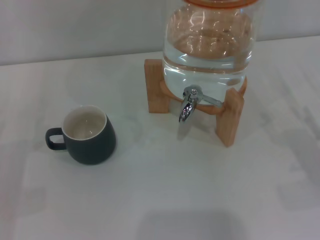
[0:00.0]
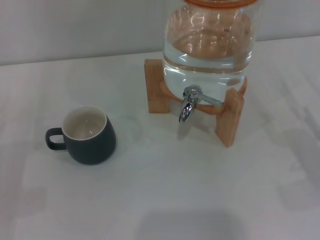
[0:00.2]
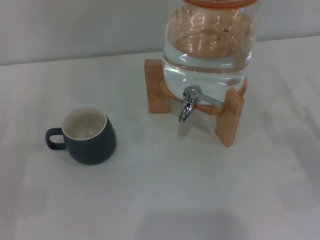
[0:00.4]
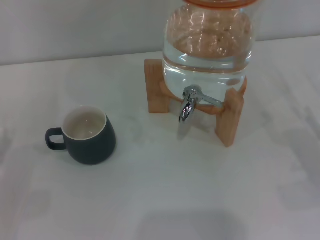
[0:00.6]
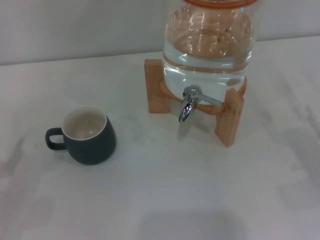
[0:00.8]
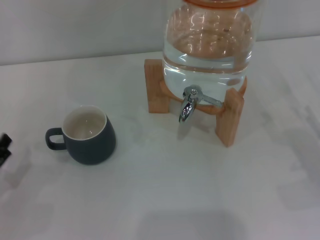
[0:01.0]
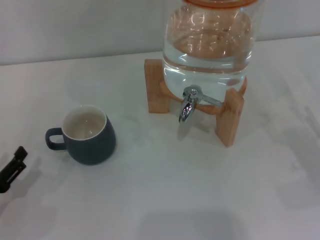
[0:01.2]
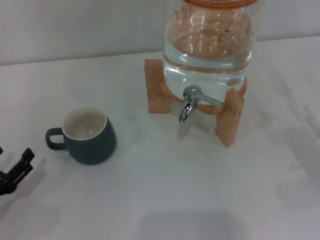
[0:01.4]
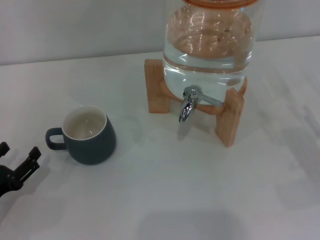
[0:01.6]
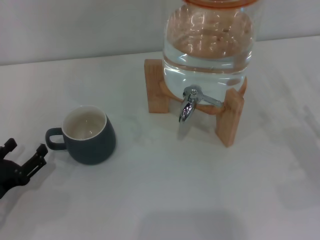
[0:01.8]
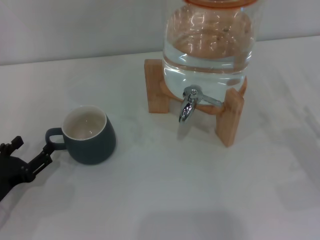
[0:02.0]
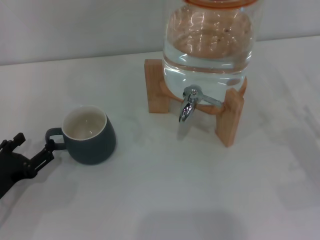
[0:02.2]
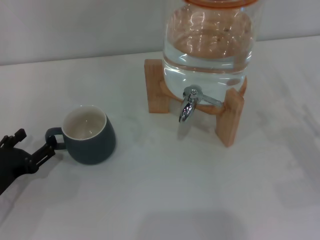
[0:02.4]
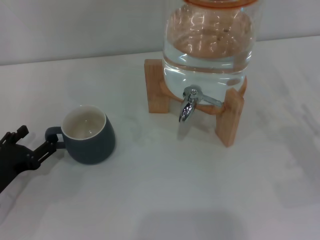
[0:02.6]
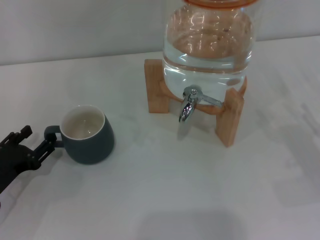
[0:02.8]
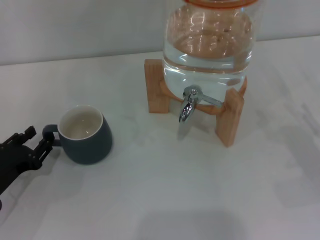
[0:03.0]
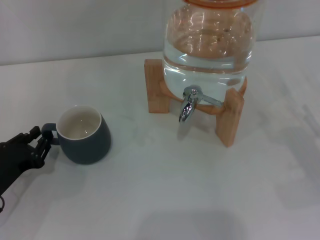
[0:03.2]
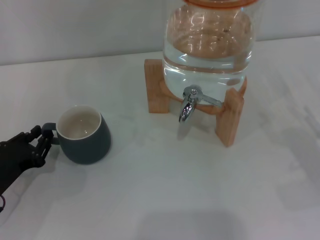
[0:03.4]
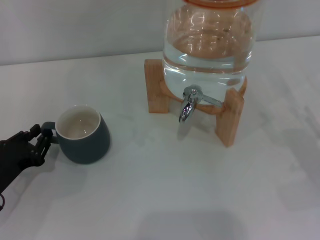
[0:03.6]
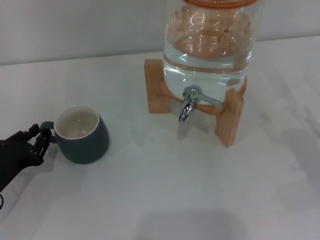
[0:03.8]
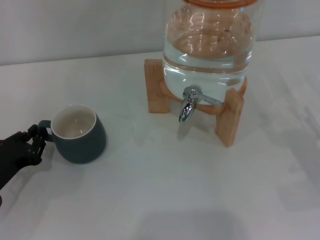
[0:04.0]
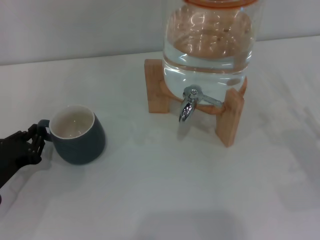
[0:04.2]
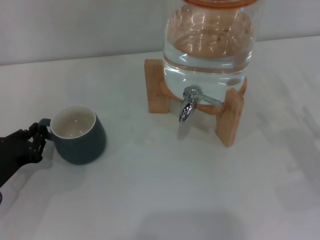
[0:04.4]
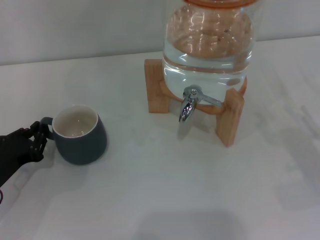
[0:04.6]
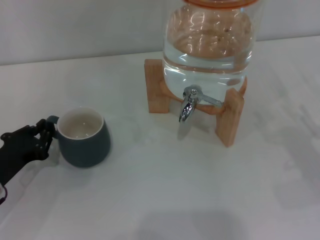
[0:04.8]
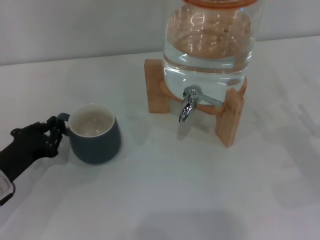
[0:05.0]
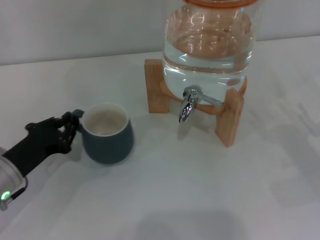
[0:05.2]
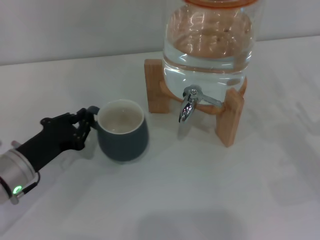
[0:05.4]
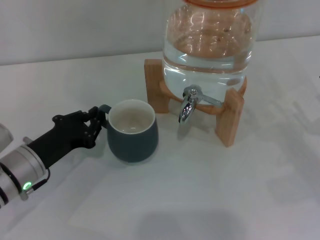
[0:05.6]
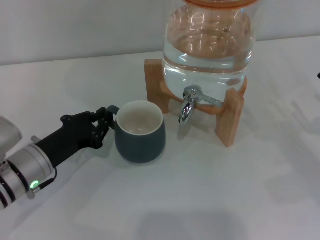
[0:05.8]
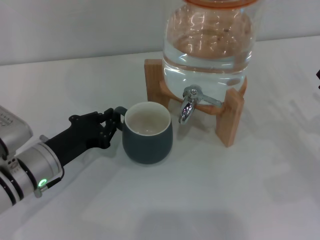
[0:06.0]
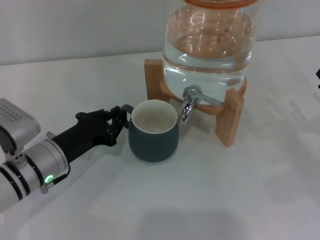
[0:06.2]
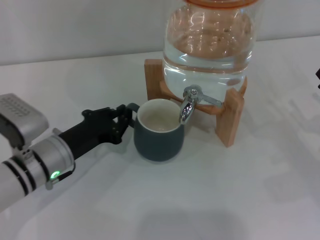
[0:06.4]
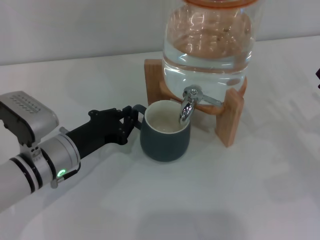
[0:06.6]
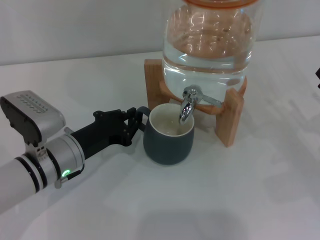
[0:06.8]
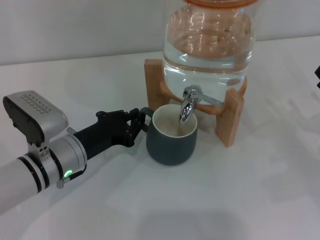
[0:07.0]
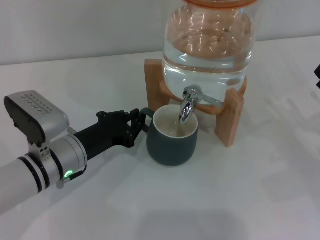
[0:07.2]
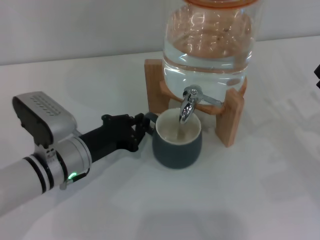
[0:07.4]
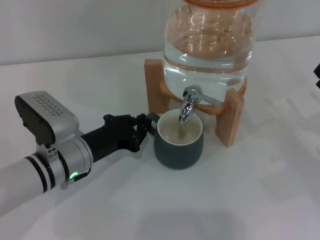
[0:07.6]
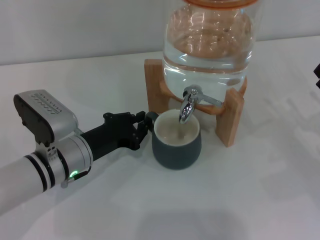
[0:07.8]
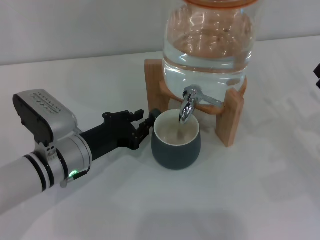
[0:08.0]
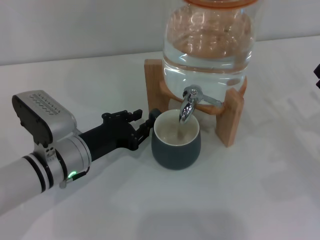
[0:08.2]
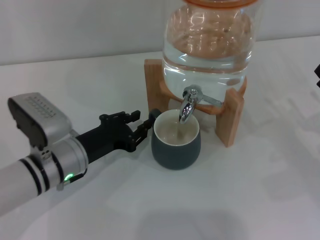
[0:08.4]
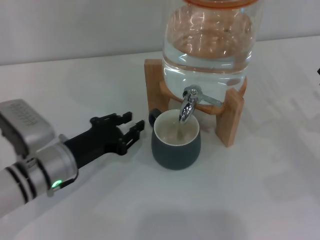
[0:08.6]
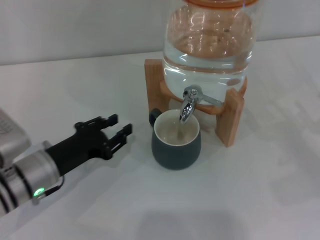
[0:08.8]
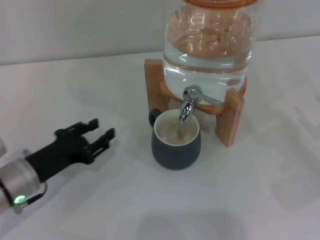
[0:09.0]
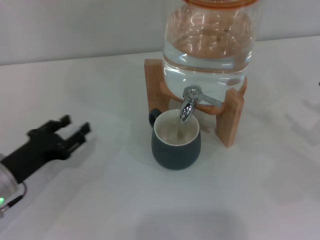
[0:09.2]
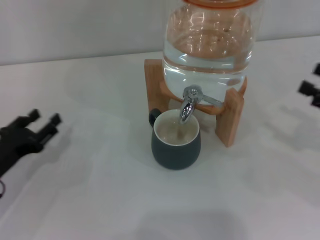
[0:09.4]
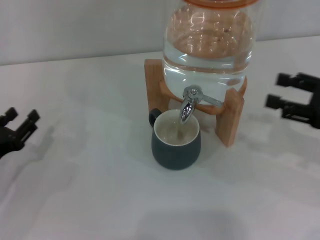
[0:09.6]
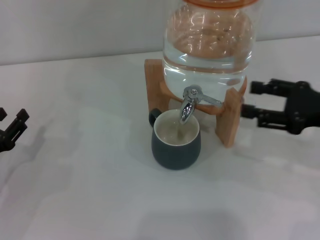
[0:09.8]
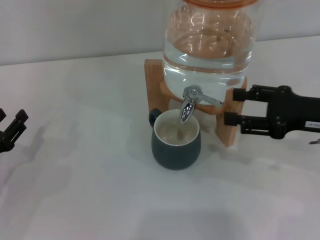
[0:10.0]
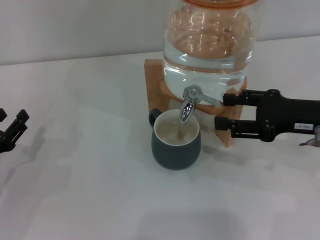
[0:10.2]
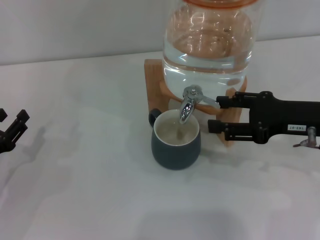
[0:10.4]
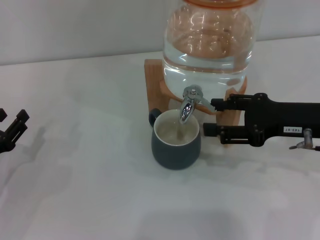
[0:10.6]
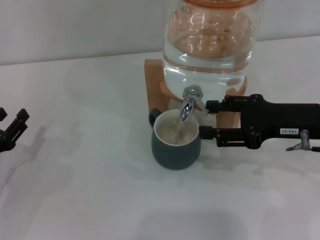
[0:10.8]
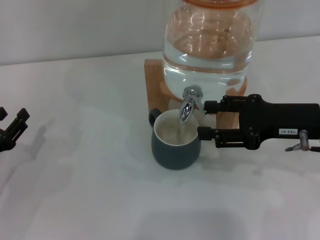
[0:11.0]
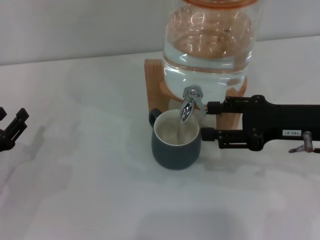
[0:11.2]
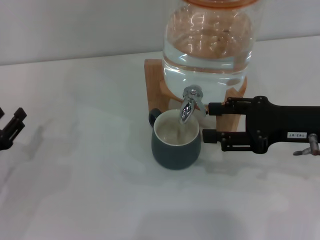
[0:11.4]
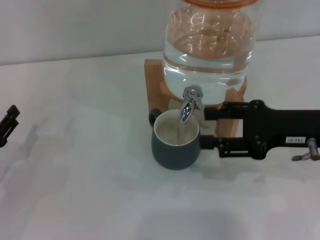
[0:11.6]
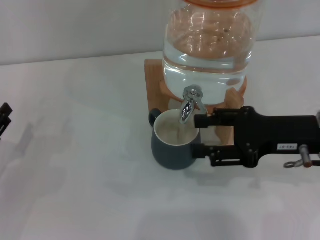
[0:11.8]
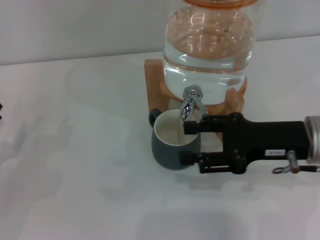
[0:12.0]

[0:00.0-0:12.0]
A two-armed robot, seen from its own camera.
Task of the whole recording: the left gripper pick up the black cup and place it horizontally under the faucet, the right gripper turn on the faucet to fill the cup, and then turn off the faucet.
Step, 0:00.0 to 0:08.2: Move the cup beneath the water dispenser nozzle with the left gripper.
Step, 0:08.6 to 0:11.4: Open the dispenser valve and fill the cup with water with the right gripper.
0:00.0 to 0:01.6: The left gripper ends up roughly 5 cm from where it was.
0:01.6 to 0:03.0: The grippers make only small movements.
0:03.0 to 0:04.4: The left gripper closes up.
0:04.4 to 0:06.0: The left gripper moves to the right, about 10 cm.
0:06.0 to 0:07.6: The grippers make only small movements.
0:07.6 to 0:09.0: The left gripper shifts some 10 cm to the left, and opens its fingers.
0:09.0 to 0:10.4: The right gripper heads to the left, upward and forward, covering approximately 15 cm; the left gripper shifts roughly 10 cm to the left.
0:10.4 to 0:12.0: The grippers move only a little.

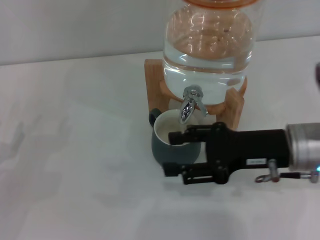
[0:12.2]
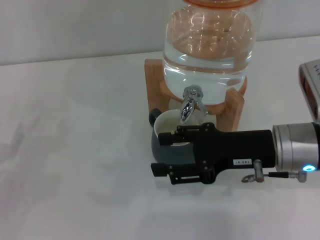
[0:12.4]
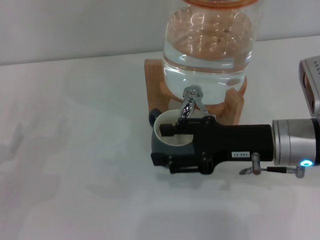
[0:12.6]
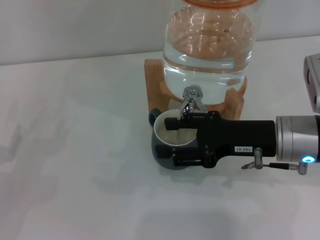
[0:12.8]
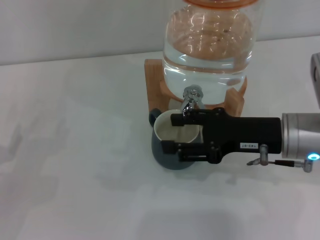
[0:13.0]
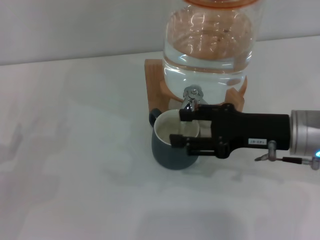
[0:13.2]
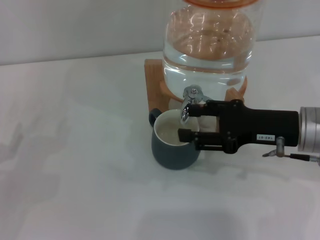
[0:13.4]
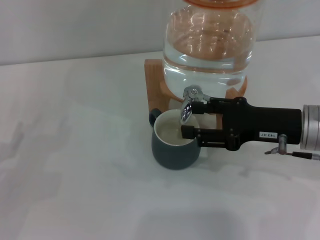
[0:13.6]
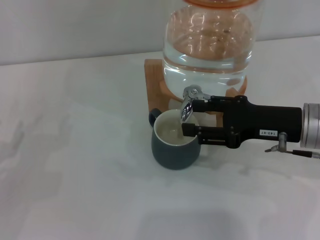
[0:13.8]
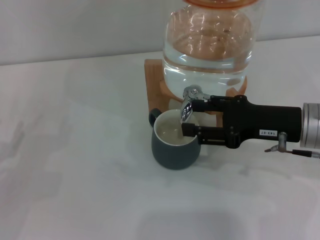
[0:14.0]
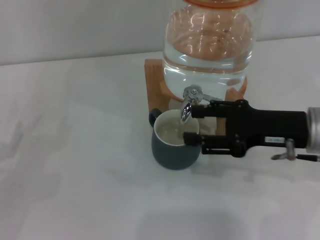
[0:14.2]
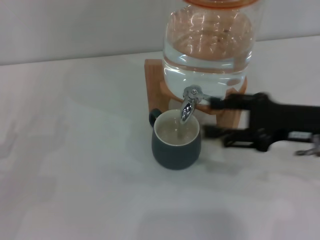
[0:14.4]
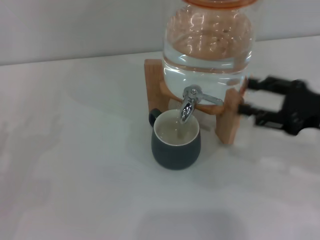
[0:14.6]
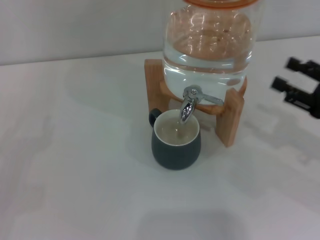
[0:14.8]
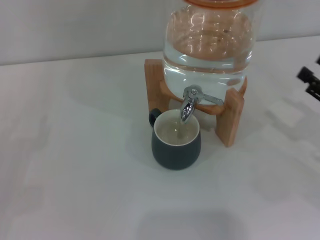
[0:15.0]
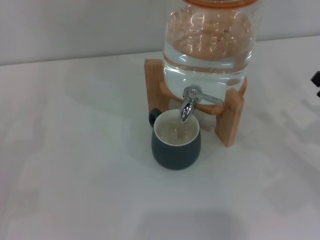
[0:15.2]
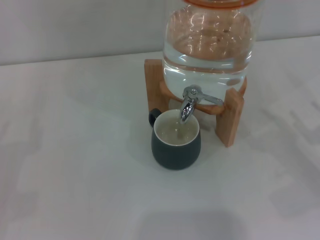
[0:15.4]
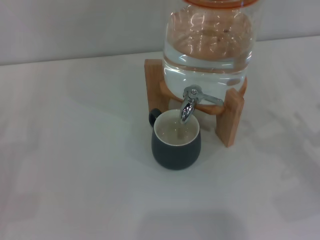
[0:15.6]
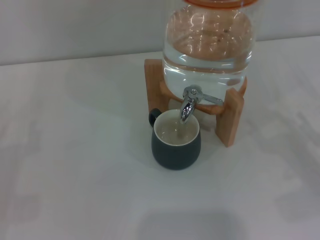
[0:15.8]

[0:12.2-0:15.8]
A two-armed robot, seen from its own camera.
Task of the whole recording: the left gripper pick up the black cup and place it horizontally under the faucet, the right gripper turn on the faucet to fill the cup, and then turn off the faucet.
Step, 0:12.2 to 0:14.4: Close the dispenser valve with the right gripper.
0:12.2 to 0:14.0: The grippers make only small movements.
0:14.0 to 0:15.8: The right gripper travels to the right, downward and backward by some 20 cm.
